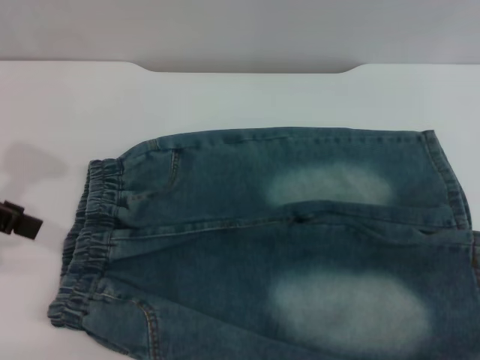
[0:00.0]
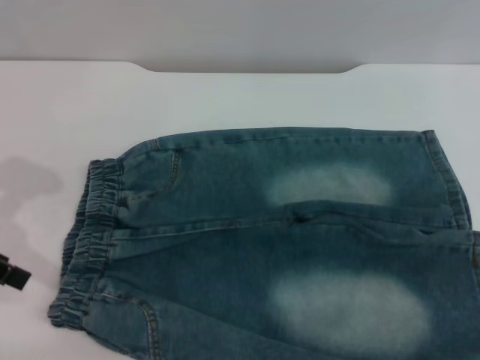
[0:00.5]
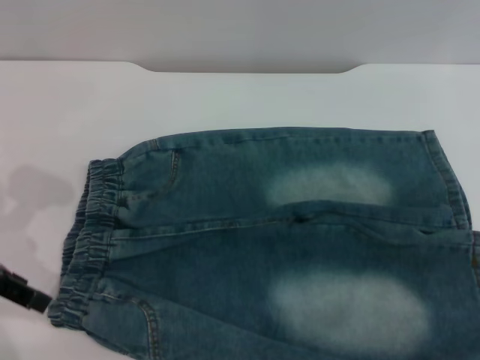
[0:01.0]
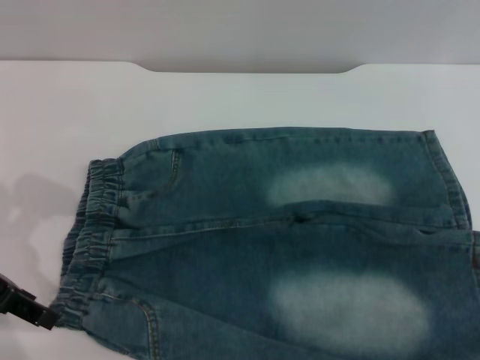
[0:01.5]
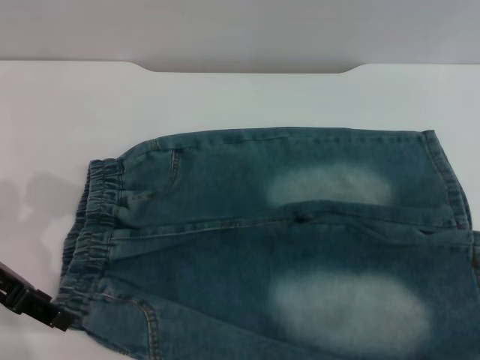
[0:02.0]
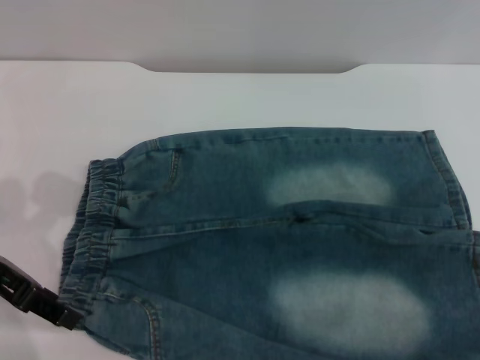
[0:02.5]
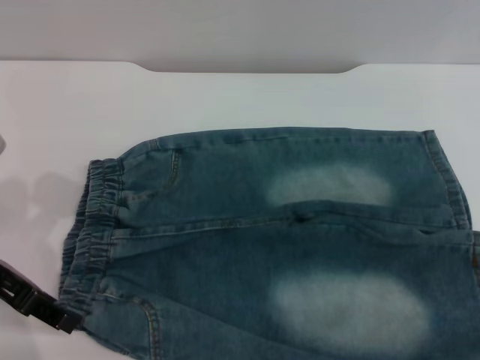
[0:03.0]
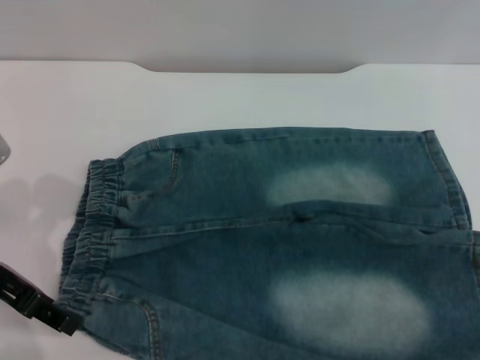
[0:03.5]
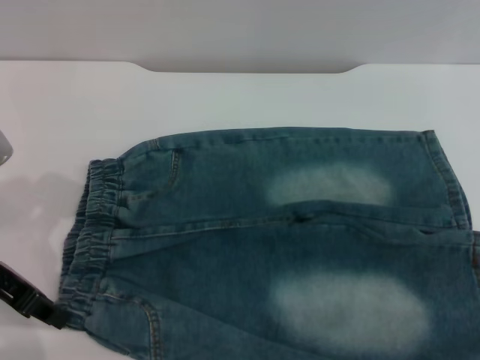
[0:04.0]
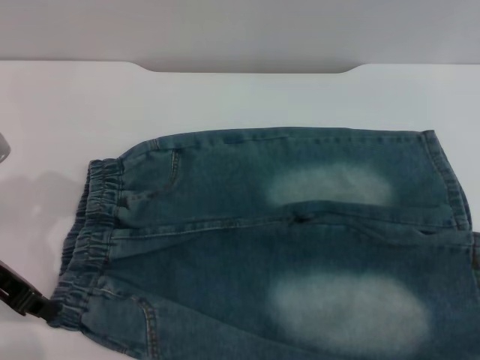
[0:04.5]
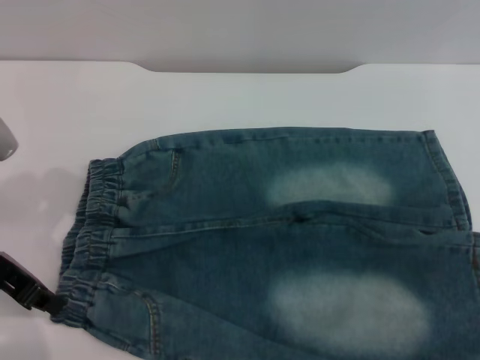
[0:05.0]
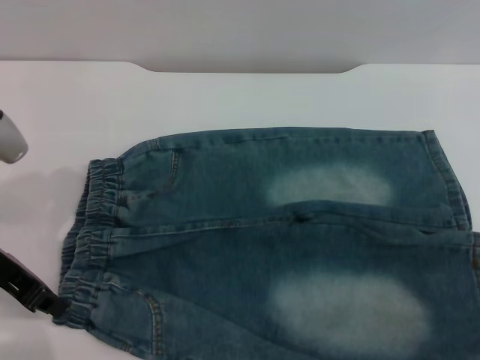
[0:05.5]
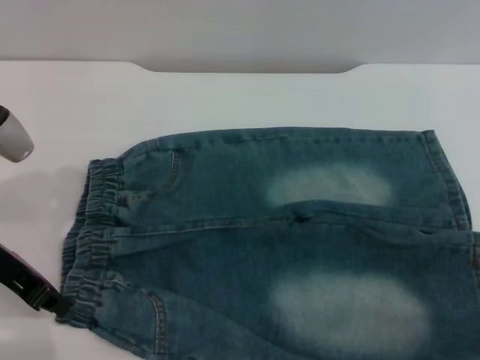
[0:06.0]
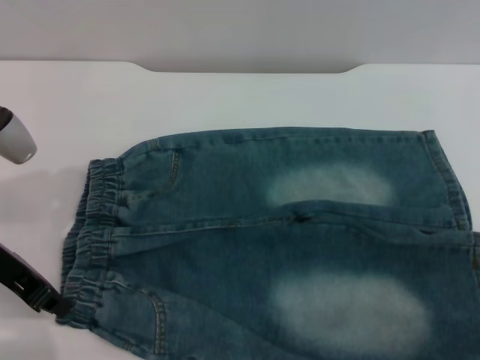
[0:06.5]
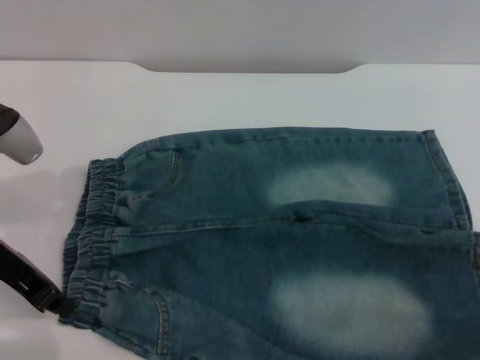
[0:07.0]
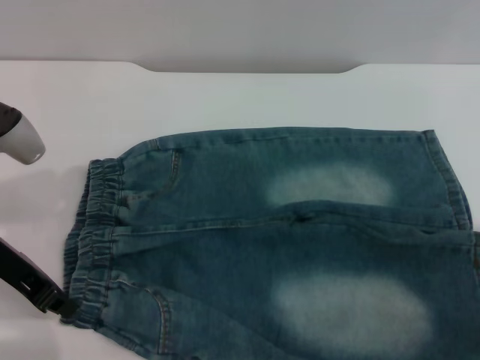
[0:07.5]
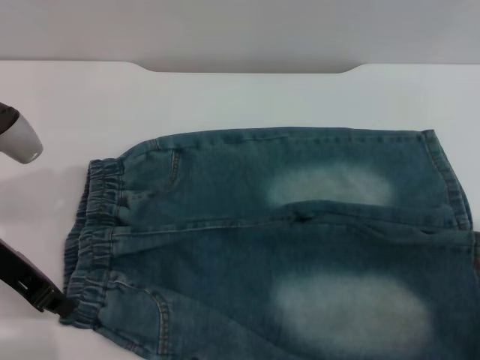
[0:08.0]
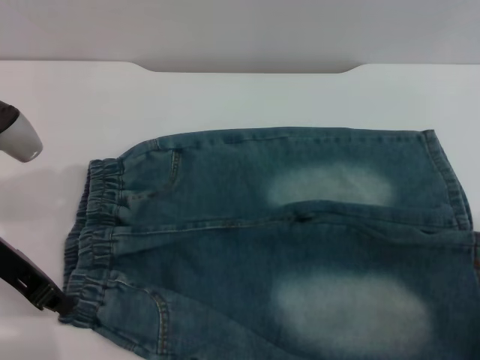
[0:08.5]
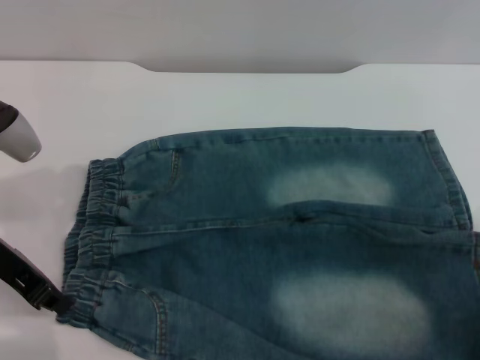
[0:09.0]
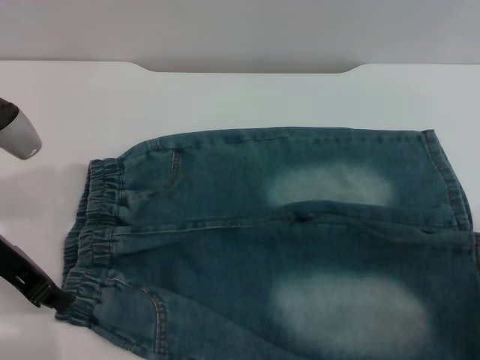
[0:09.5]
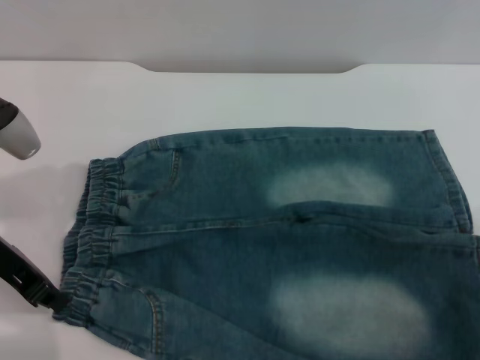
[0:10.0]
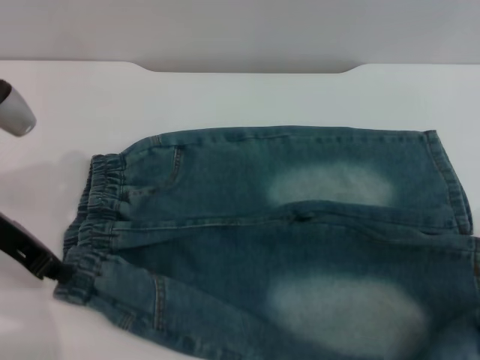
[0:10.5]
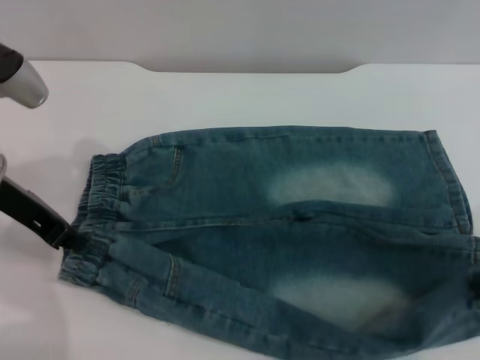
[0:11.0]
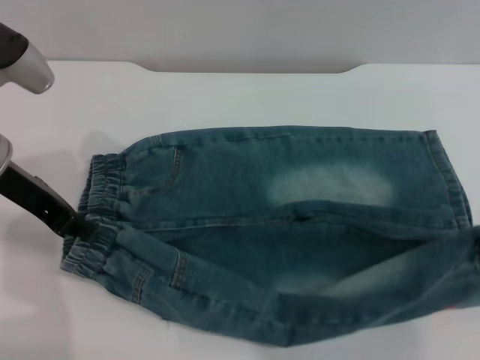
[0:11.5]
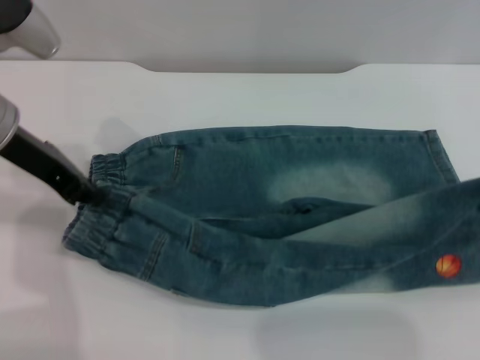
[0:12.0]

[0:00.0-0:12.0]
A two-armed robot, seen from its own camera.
0:00.0 to 0:02.0: The left gripper heads downward, covering approximately 10 cm.
0:04.0 to 0:06.0: The left gripper closes.
0:10.0 to 0:12.0: Both grippers move upward, some 5 cm.

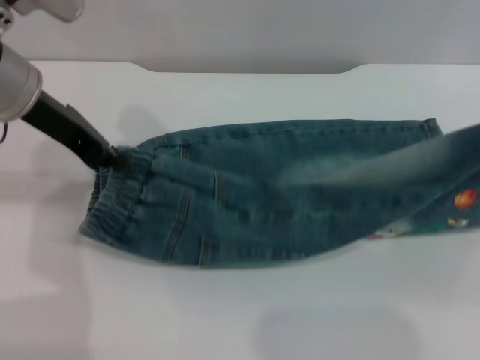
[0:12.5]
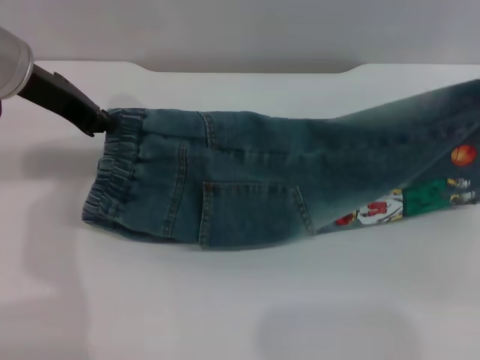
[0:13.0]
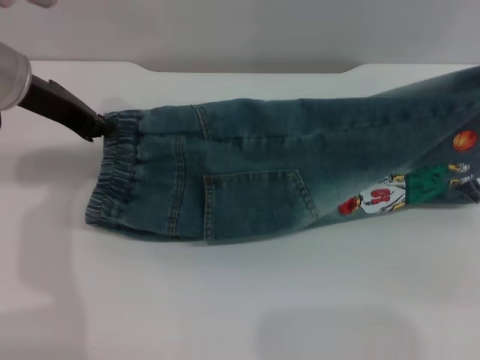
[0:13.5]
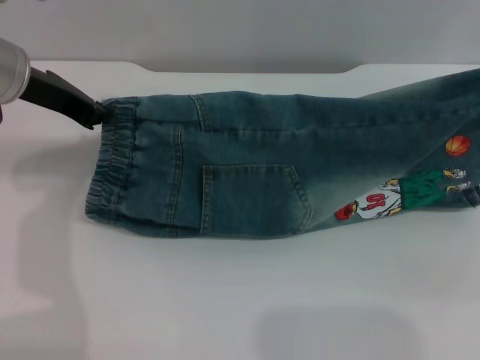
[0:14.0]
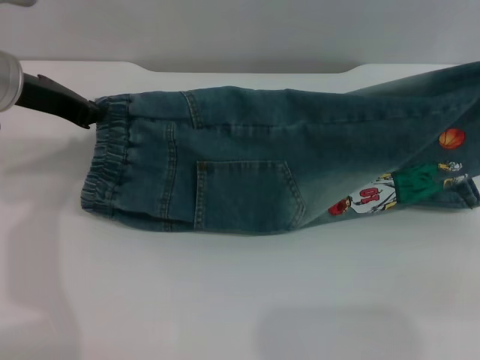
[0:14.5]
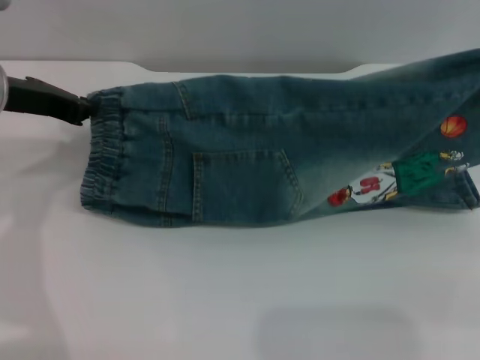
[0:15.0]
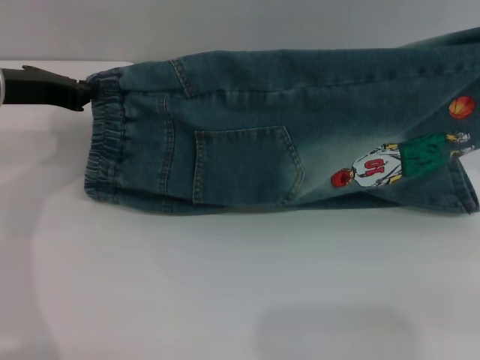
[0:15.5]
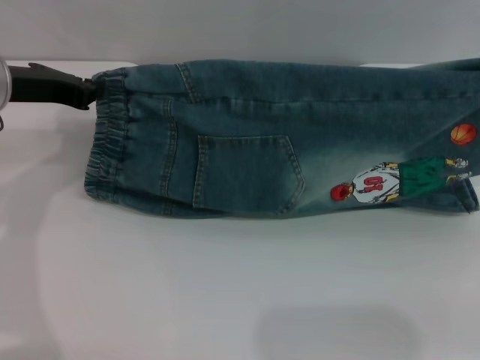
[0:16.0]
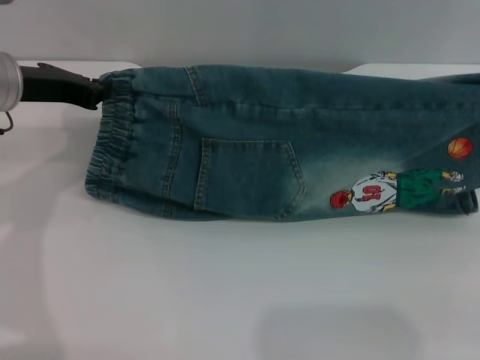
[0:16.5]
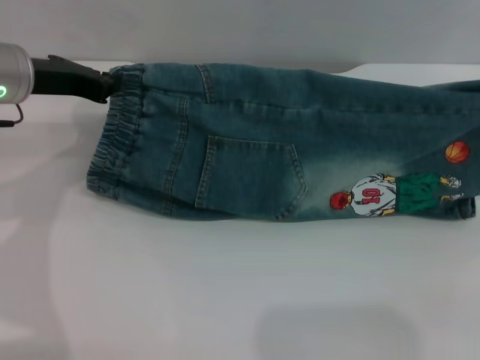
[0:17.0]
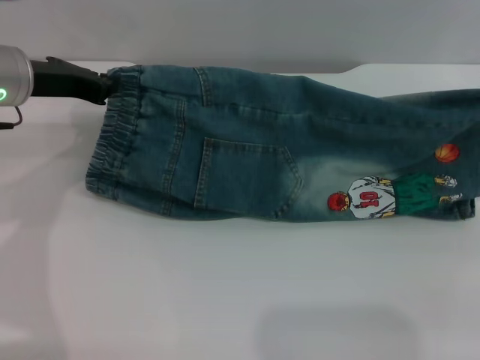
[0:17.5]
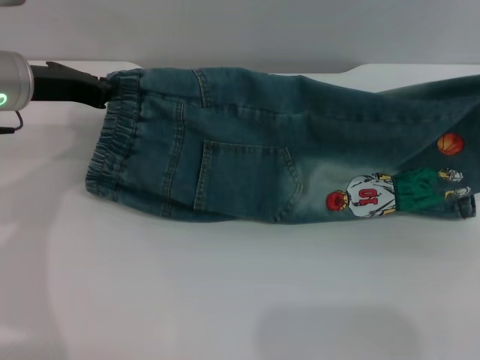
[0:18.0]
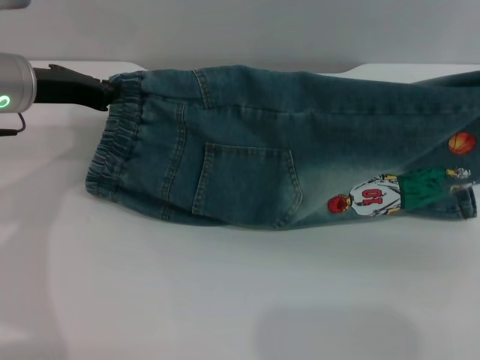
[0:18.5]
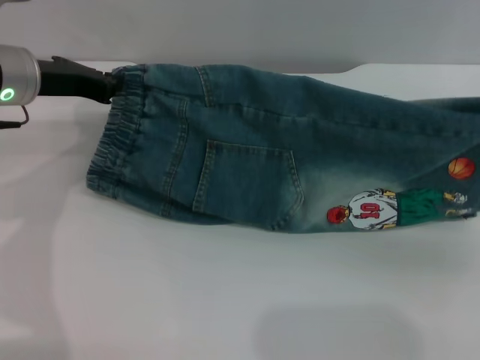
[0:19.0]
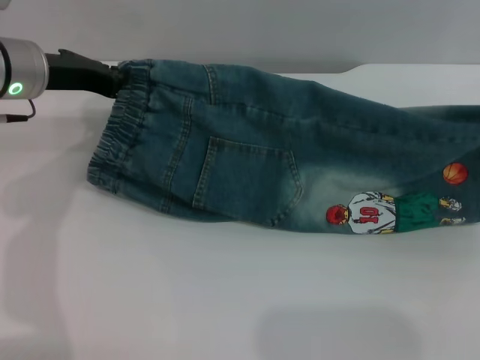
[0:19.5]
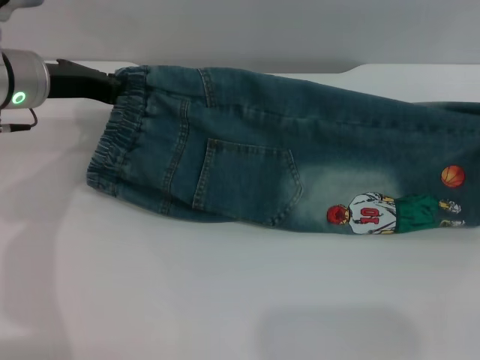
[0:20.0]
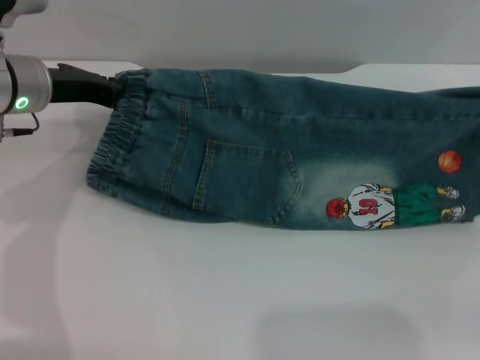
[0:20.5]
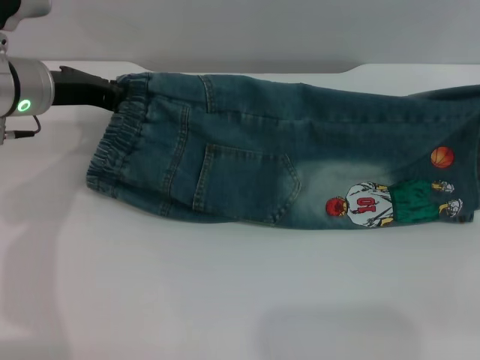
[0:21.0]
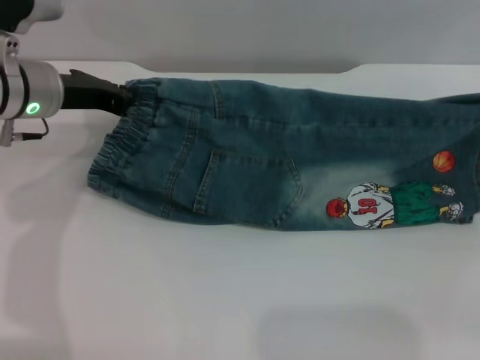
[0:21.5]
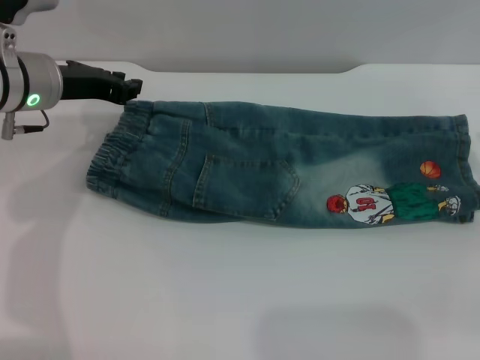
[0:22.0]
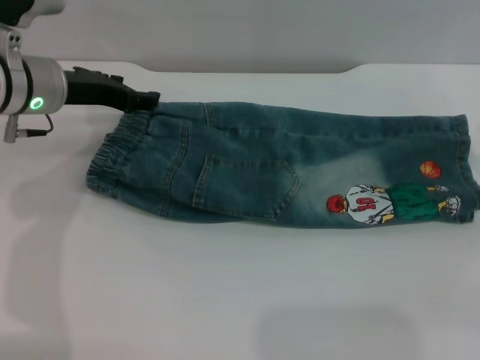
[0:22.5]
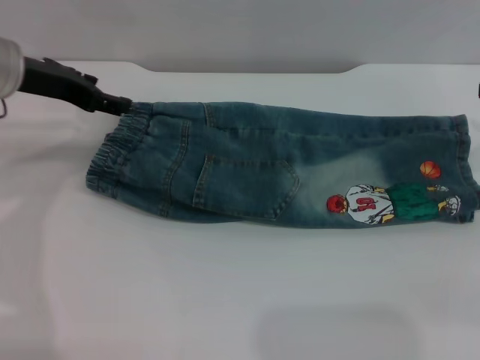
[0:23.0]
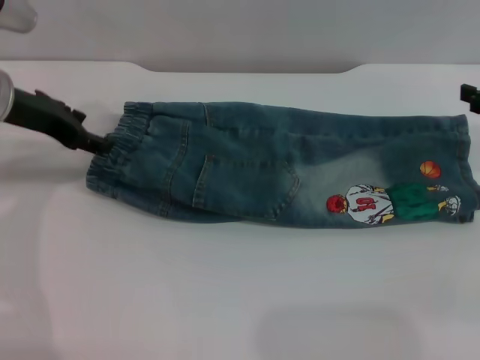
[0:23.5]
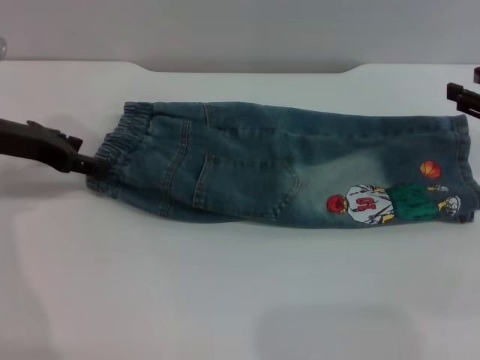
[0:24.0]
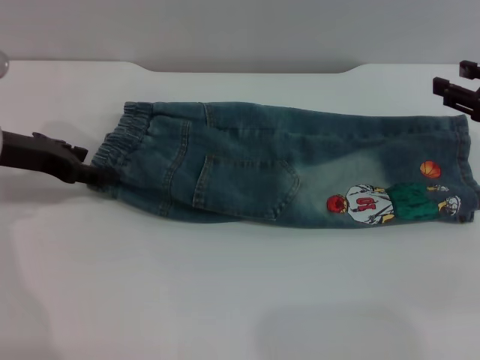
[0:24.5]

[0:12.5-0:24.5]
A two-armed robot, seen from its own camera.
Step, 0:12.5 to 0:23.5: Fold the bottom of the pants upward with both grippers.
0:14.5 to 0:16.5: The right gripper shifts by approximately 5 cm.
0:16.5 to 0:18.5: The grippers move only a little.
0:18.5 to 0:20.5: The right gripper is displaced downward by some 5 cm.
0:20.5 to 0:22.5: The right gripper opens up; the left gripper opens.
0:22.5 to 0:24.5: The left gripper goes approximately 5 cm to the left.

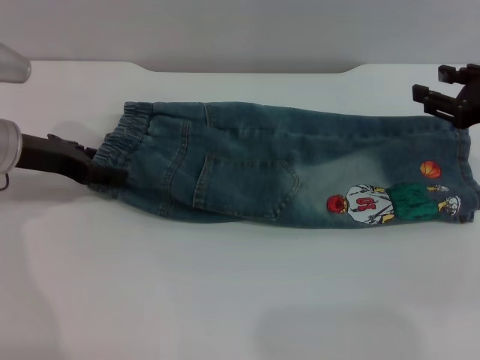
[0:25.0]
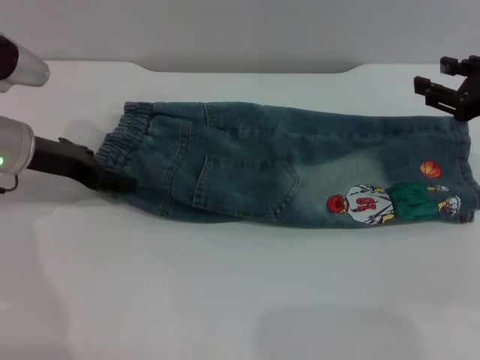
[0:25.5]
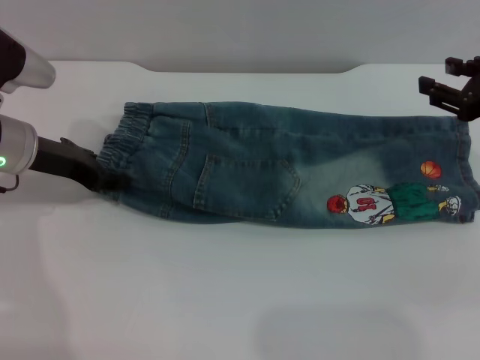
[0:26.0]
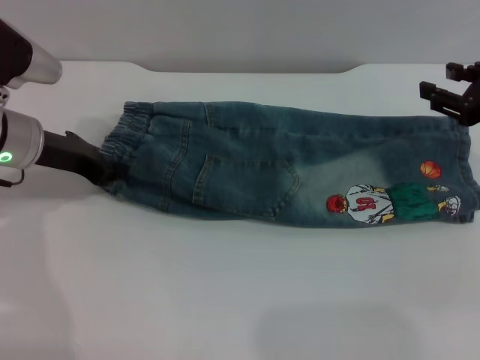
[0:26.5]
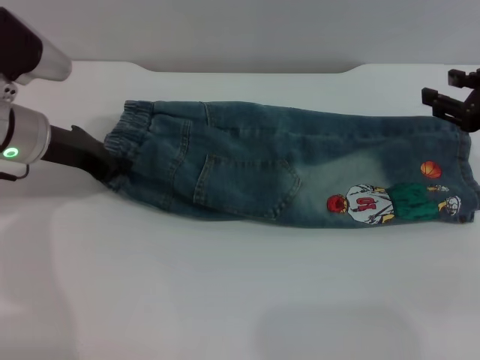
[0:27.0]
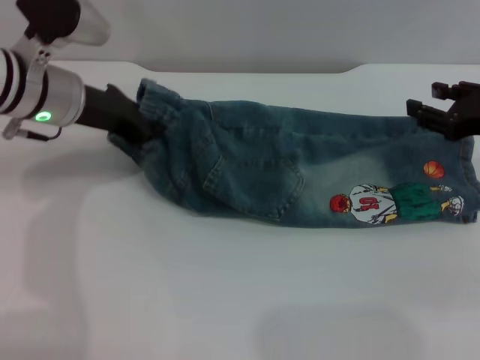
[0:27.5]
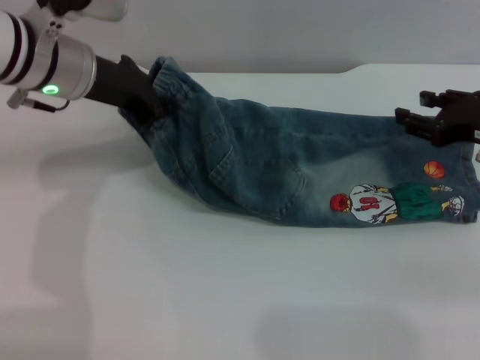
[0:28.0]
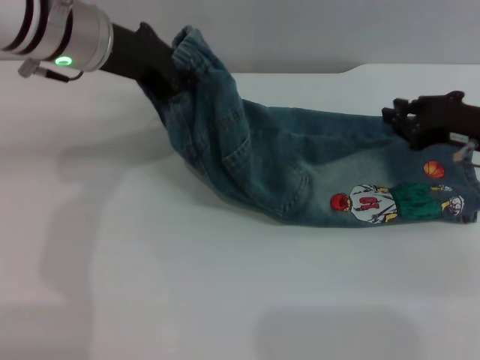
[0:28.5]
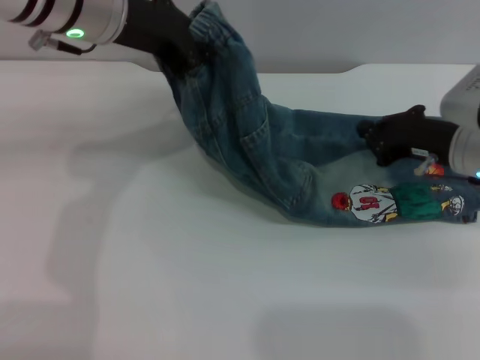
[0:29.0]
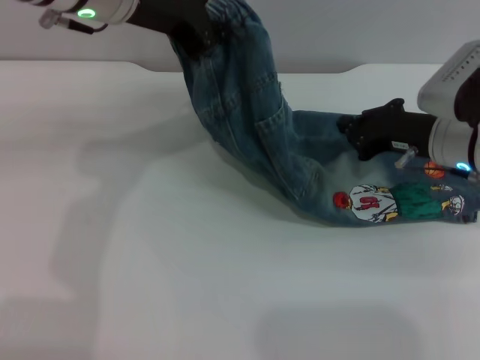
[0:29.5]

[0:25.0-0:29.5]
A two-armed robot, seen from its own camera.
0:25.0 to 0:27.0: The left gripper closes.
0:27.0 to 0:29.5: The right gripper travels to the left by roughly 10 cm, and closes up; the left gripper heads upward and to the right, covering about 20 cm.
